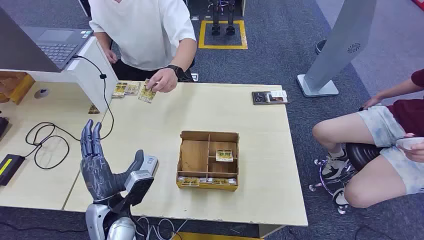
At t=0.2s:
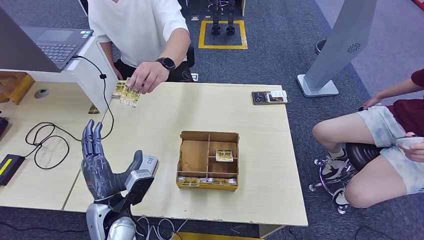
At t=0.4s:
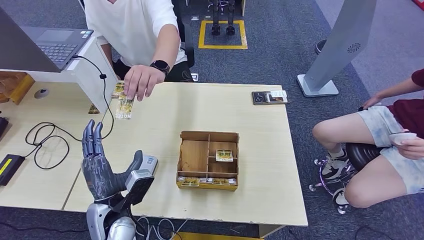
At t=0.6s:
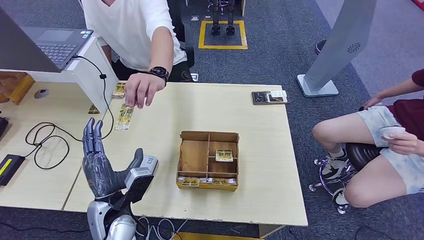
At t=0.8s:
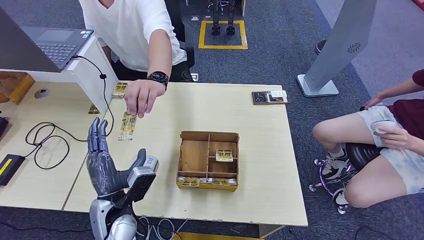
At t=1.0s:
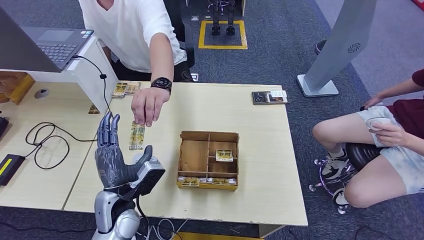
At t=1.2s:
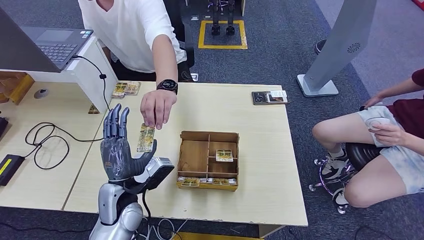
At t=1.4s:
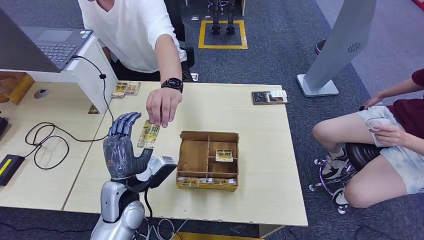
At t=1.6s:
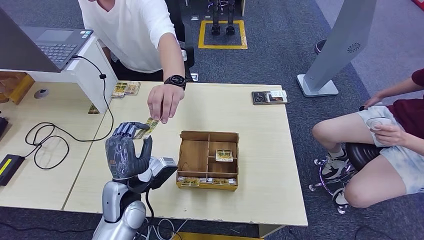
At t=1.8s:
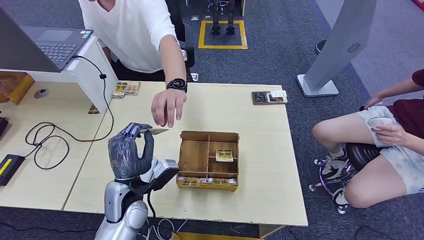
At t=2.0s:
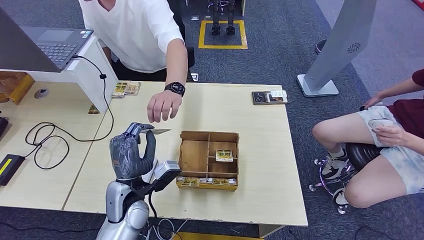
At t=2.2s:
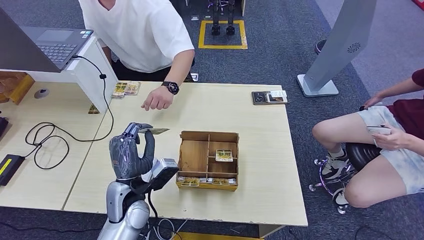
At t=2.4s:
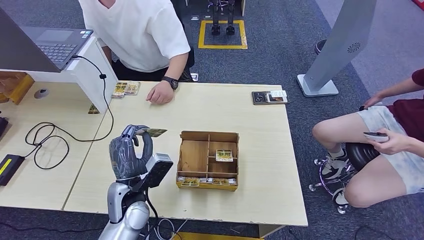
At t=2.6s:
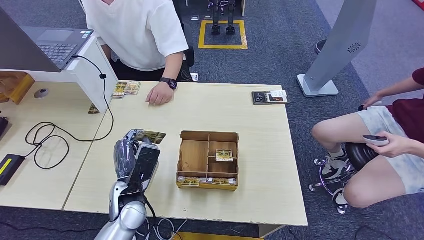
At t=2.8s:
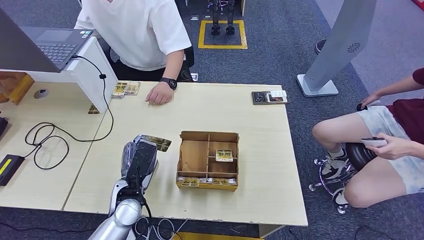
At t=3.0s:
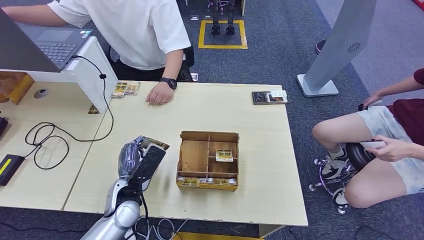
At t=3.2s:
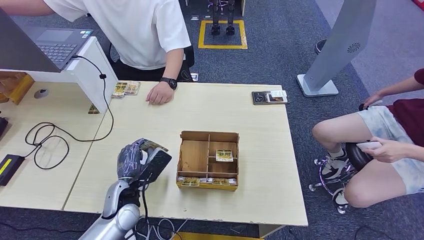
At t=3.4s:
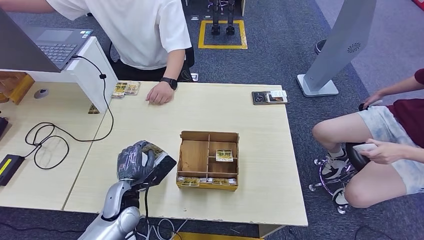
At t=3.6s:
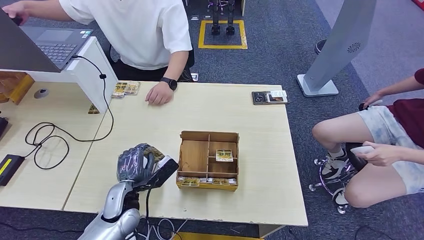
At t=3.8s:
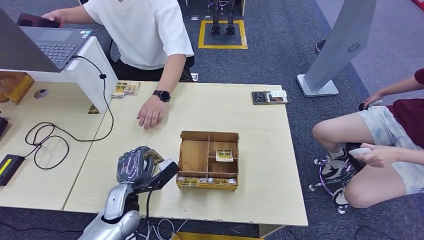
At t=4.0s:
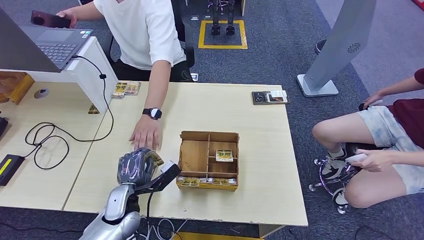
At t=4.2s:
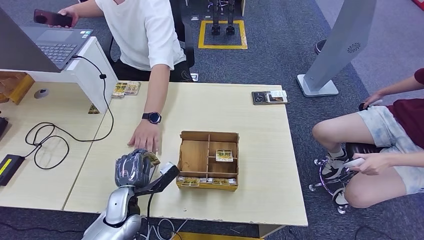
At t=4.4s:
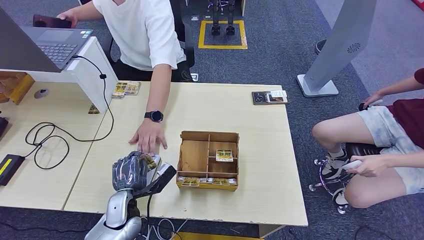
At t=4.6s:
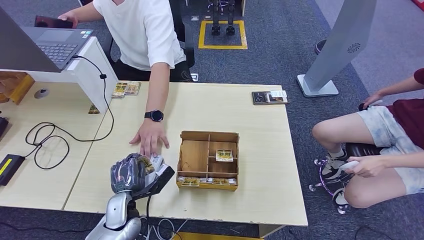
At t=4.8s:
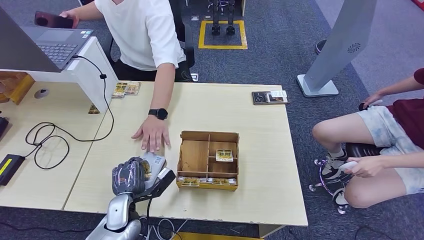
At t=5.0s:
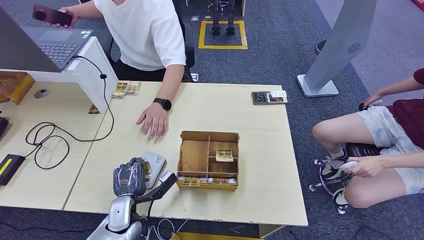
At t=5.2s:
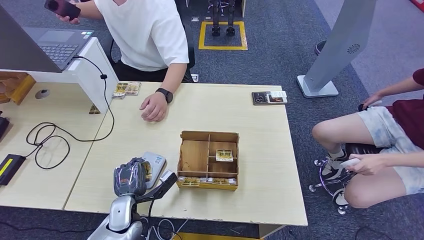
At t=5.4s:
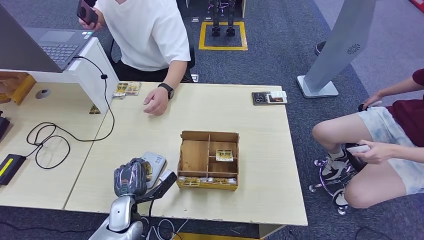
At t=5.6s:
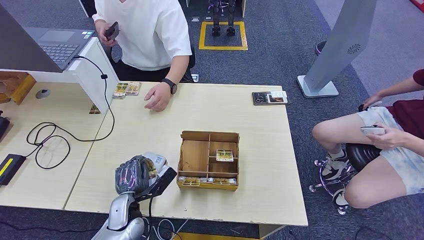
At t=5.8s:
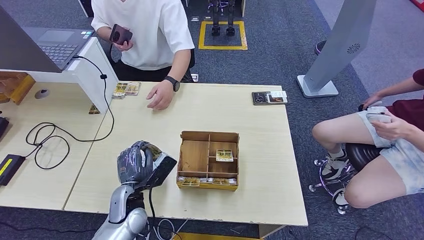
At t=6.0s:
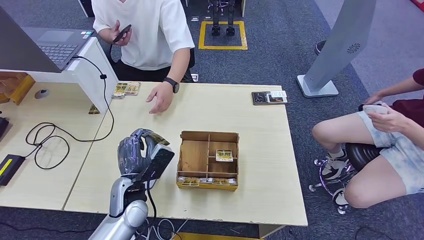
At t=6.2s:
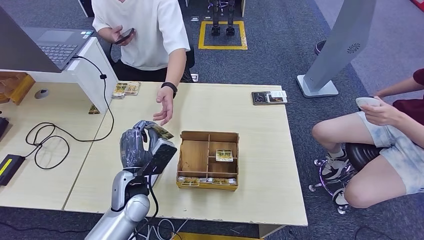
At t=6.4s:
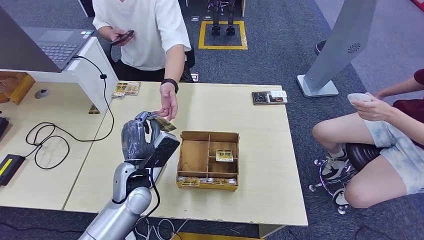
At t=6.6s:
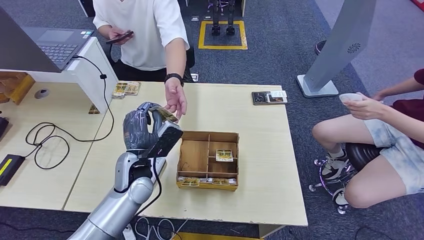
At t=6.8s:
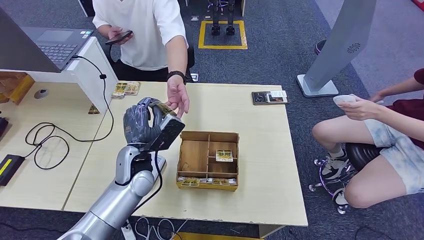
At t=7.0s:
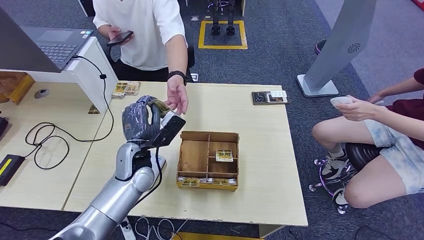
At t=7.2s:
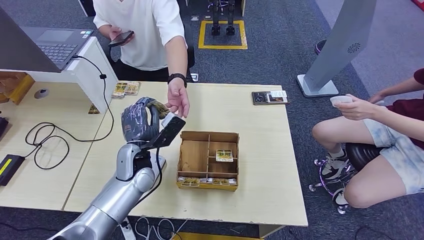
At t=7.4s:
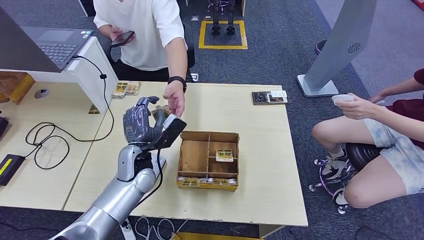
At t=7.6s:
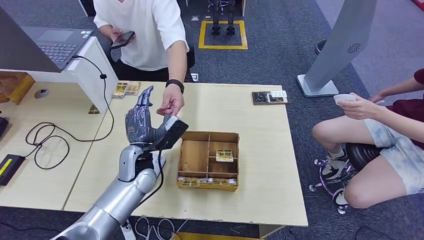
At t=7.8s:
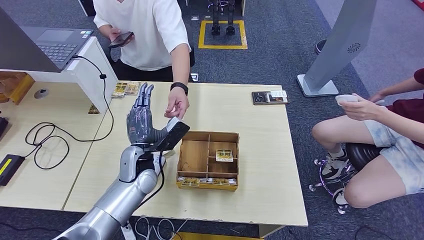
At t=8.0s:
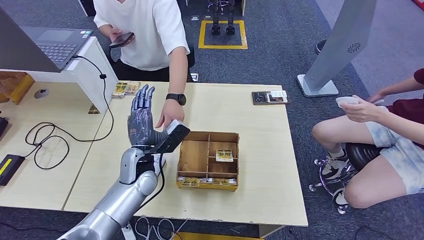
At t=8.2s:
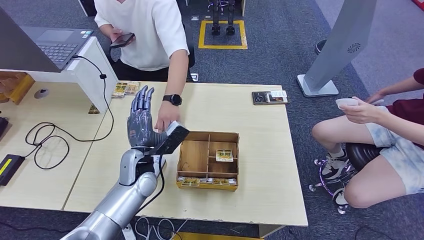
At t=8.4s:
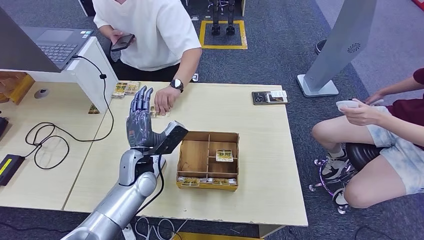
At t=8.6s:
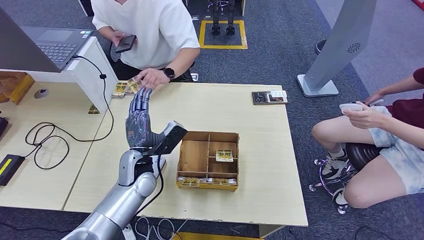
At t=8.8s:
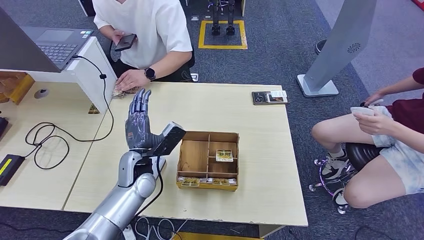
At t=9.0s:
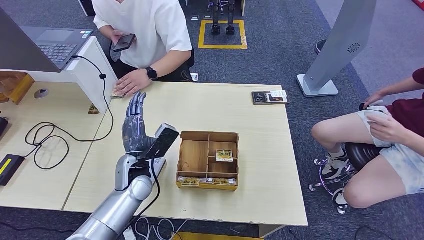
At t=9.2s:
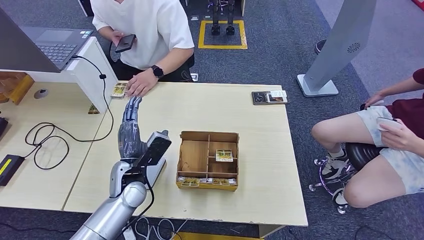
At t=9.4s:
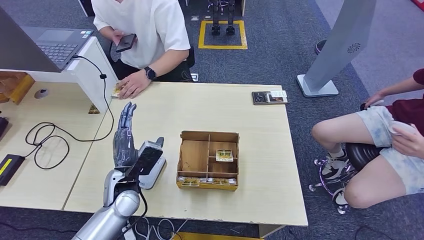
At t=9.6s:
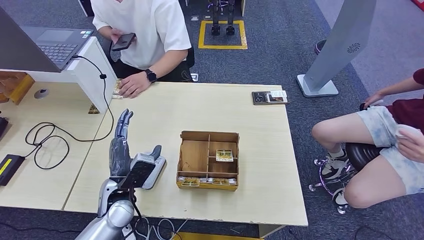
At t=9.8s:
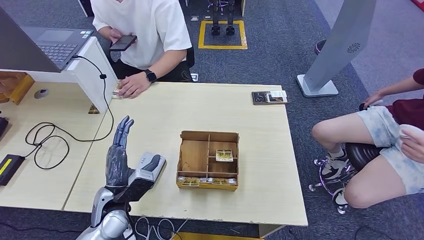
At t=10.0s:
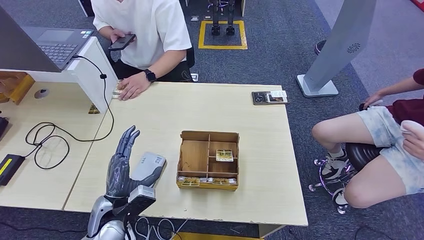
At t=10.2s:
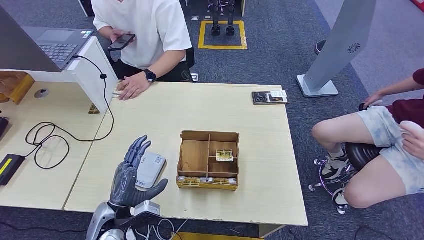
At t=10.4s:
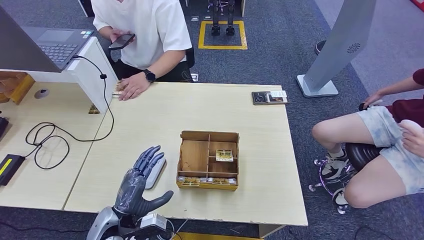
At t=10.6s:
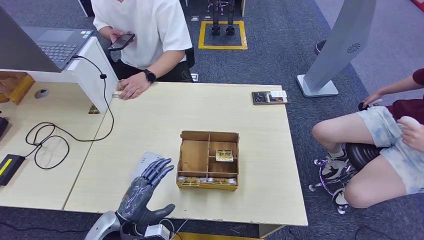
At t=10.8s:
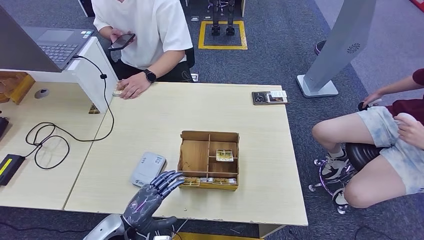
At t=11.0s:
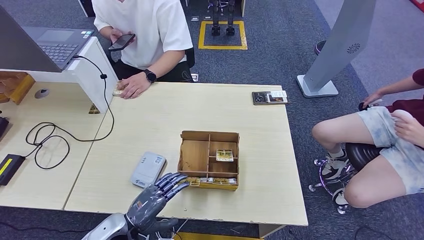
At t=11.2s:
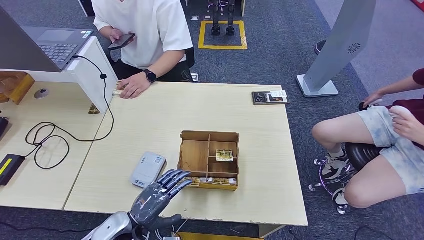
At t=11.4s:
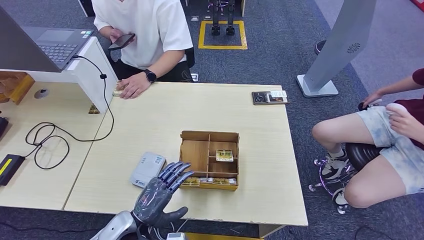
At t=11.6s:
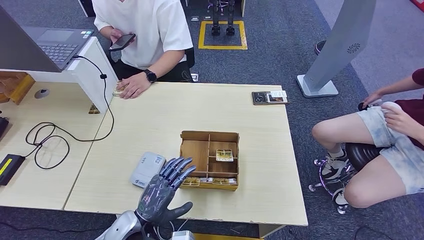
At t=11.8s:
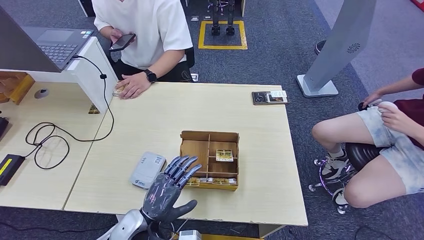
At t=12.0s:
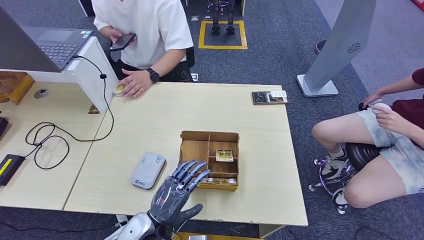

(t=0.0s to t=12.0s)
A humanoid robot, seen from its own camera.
Step, t=0.0s - t=2.4s: Take the ID card from the person's hand.
Step, t=2.8s - t=5.4s: Place the ID card on the card reader.
Step, t=5.6s - t=8.4s: Hand the ID card to the person.
t=3.0s - t=4.4s: The left hand shifts about 5 cm downward.
t=4.4s - t=6.0s: The left hand heads upward, covering approximately 5 cm.
t=6.0s - t=7.6s: The left hand goes approximately 5 cm forward.
t=7.6s - t=9.0s: The hands move only a little.
t=9.0s - t=10.4s: The left hand heads backward, to the left and downward, covering about 15 cm.
t=10.4s - t=12.0s: The left hand goes about 10 cm to the right.

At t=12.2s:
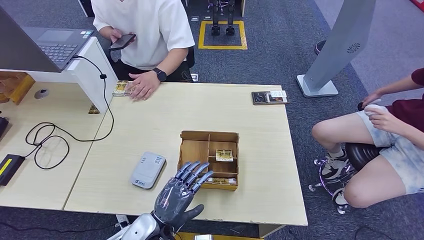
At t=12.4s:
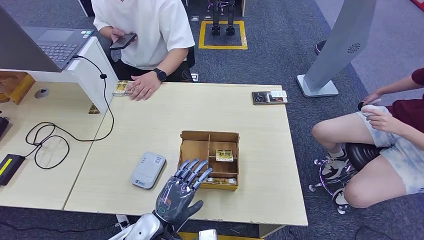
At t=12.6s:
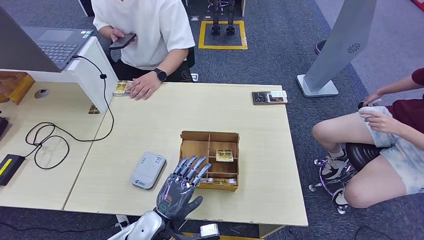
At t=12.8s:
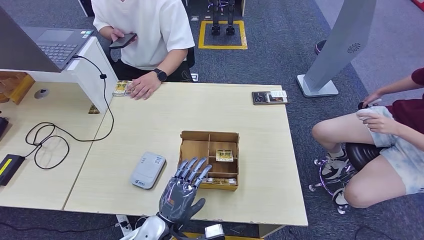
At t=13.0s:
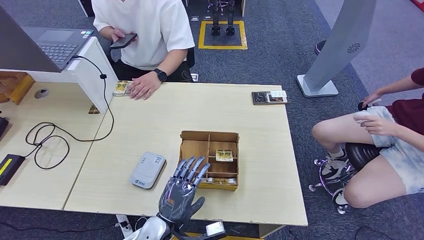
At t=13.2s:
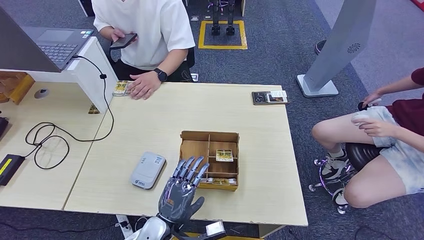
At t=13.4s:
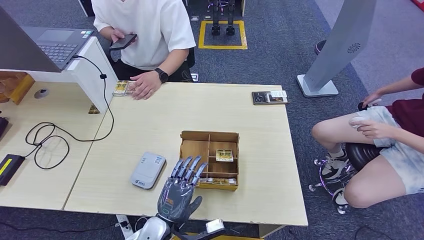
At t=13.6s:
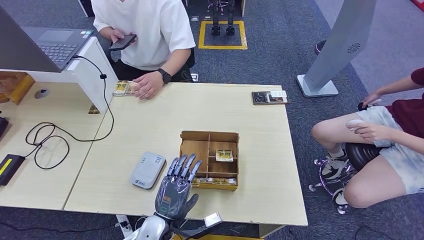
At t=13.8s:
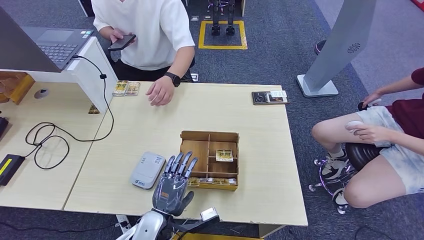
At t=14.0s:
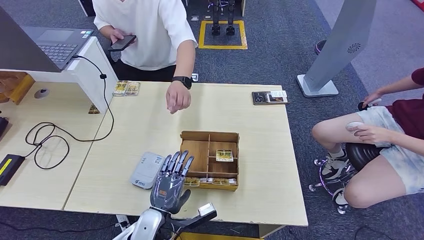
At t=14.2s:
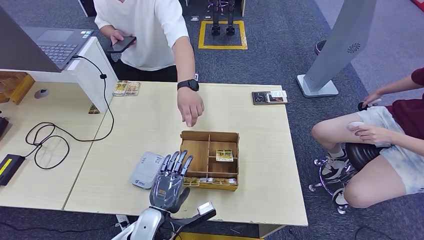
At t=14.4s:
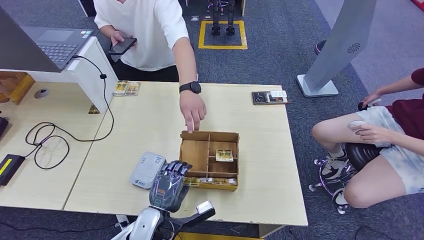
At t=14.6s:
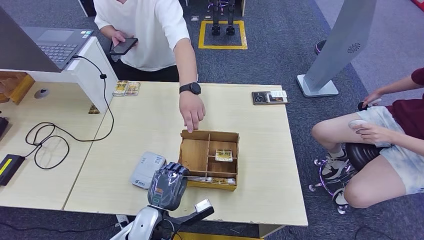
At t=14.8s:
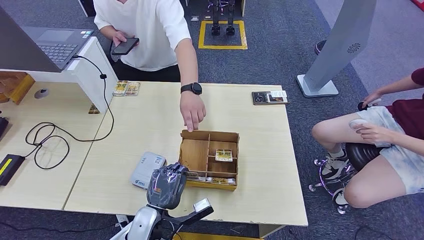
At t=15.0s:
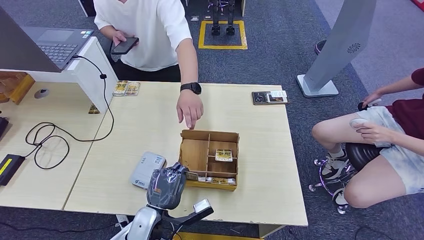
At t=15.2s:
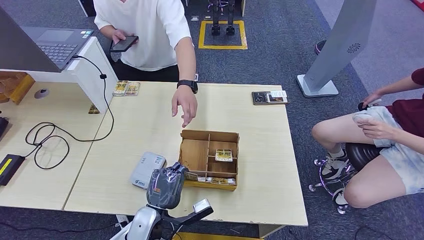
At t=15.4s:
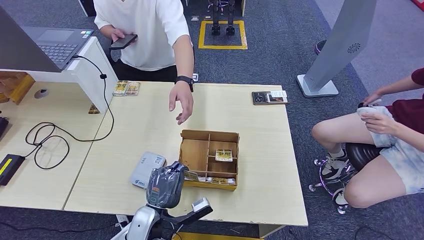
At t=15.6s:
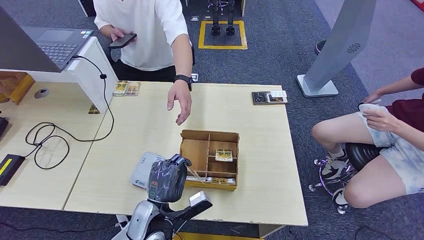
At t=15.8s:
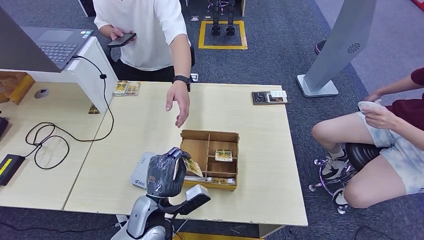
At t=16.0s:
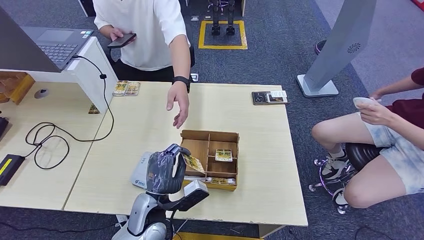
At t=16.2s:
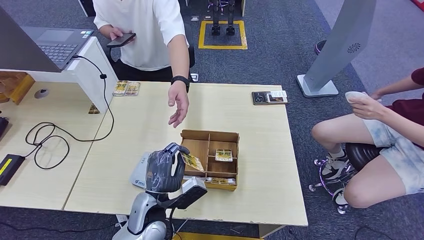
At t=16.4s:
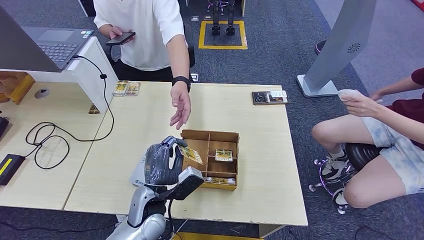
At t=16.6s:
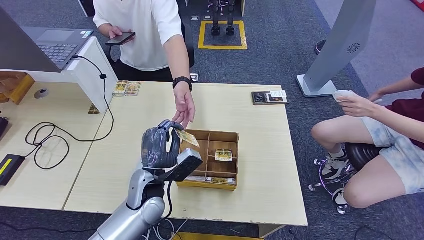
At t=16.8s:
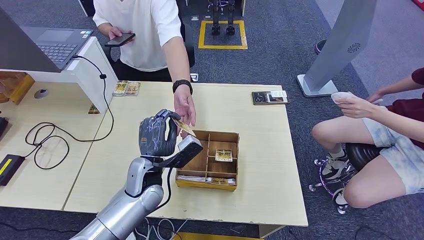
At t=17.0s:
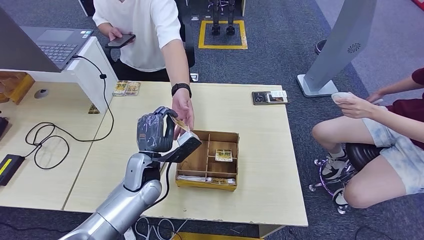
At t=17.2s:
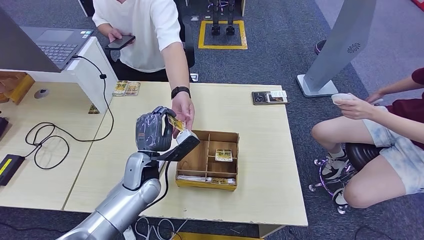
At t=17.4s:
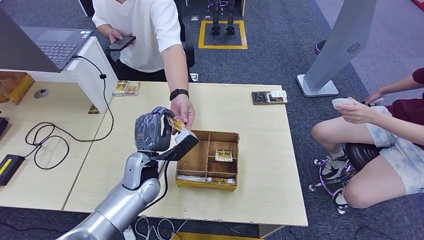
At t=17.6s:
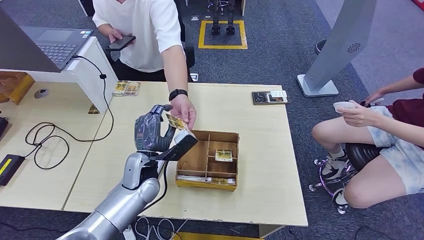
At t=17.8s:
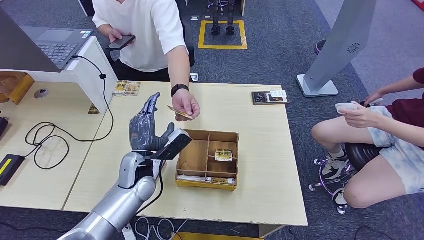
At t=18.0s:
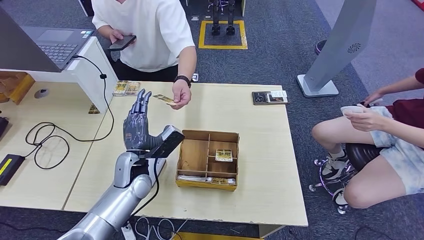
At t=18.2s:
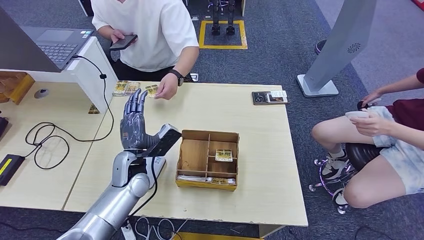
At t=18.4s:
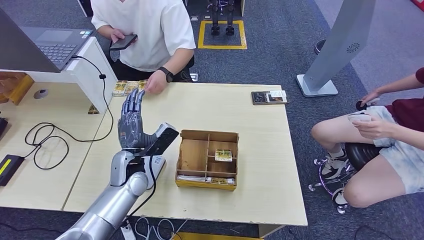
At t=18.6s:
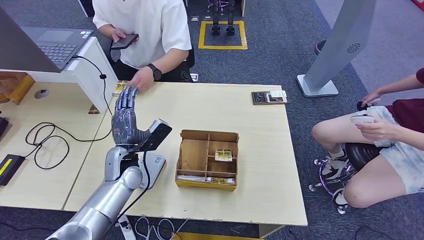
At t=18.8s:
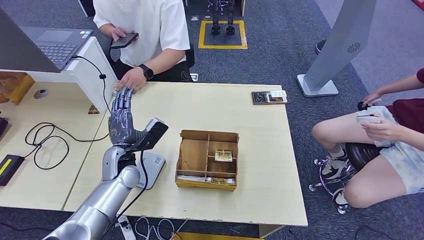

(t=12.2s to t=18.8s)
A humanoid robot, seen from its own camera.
Step, t=12.2s - t=16.2s: Pick up the room key from the key card box.
t=13.8s - t=15.4s: The hands stay close to where they were, moving slightly.
t=15.4s - t=17.2s: The left hand moves forward and upward, some 15 cm.
t=17.2s - t=18.8s: The left hand moves to the left, approximately 10 cm. Meanwhile the right hand shifts roughly 10 cm forward.
